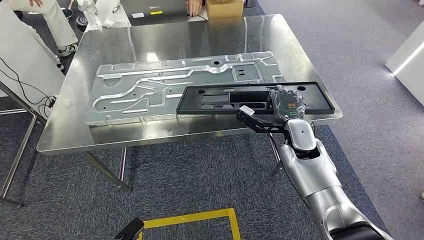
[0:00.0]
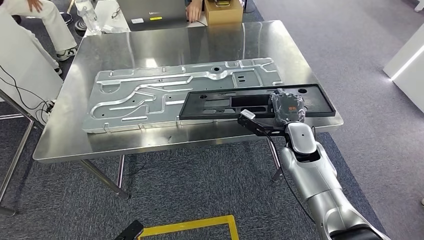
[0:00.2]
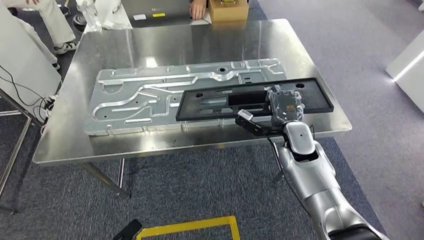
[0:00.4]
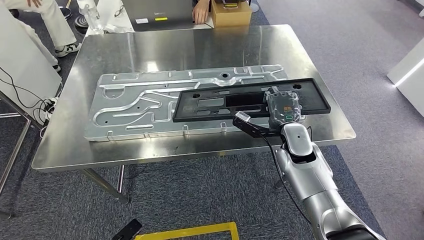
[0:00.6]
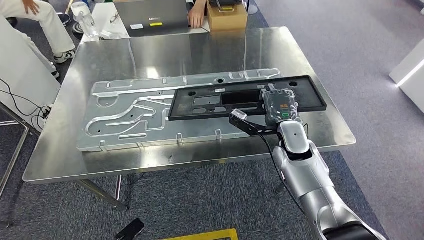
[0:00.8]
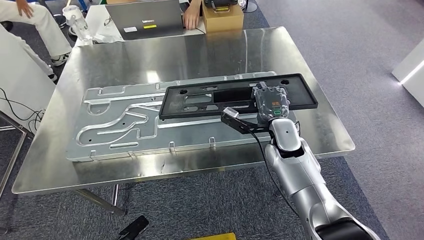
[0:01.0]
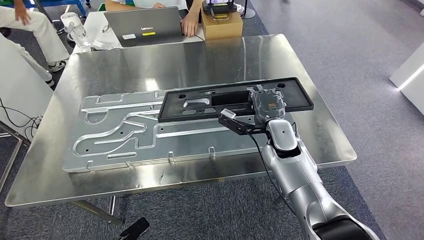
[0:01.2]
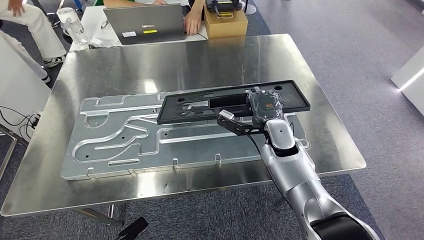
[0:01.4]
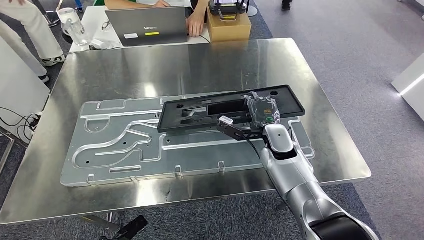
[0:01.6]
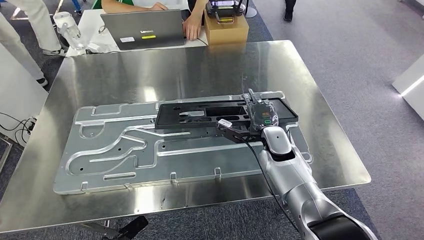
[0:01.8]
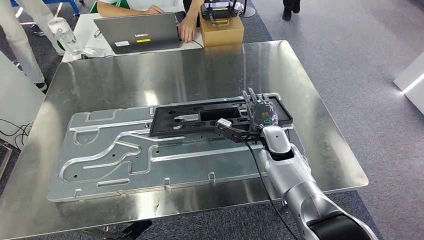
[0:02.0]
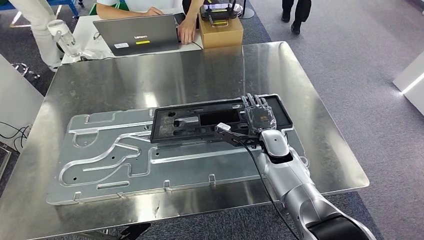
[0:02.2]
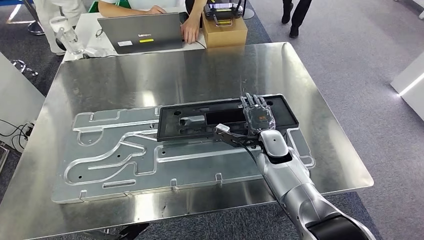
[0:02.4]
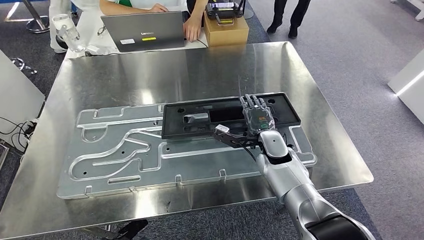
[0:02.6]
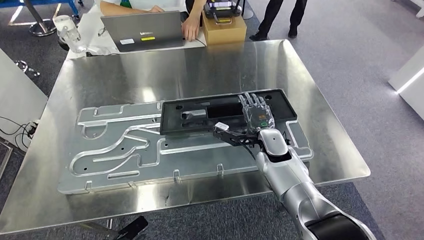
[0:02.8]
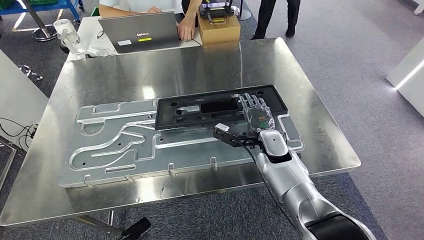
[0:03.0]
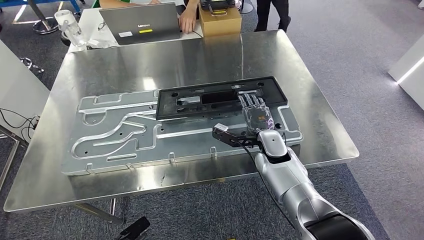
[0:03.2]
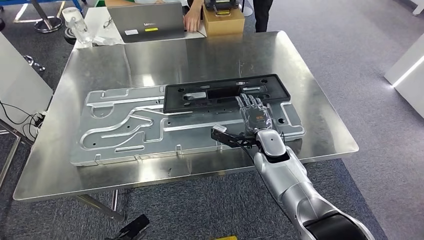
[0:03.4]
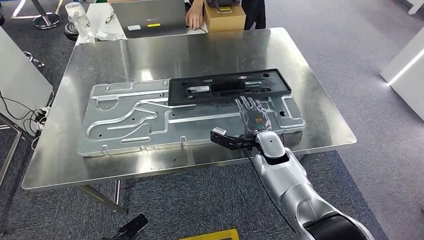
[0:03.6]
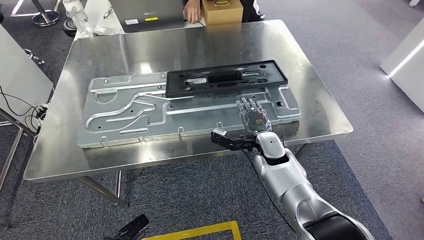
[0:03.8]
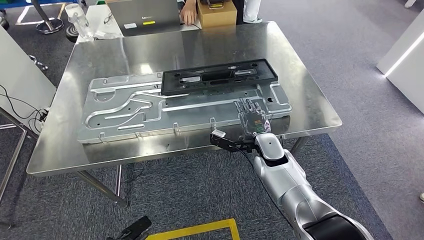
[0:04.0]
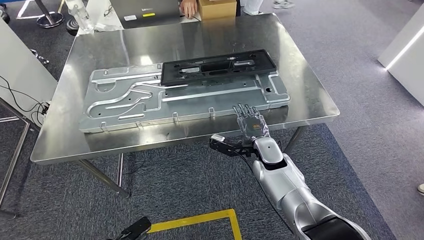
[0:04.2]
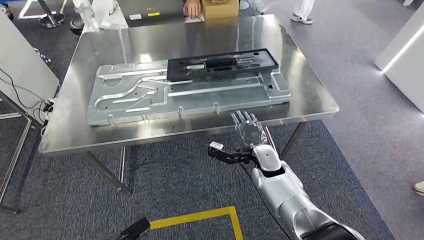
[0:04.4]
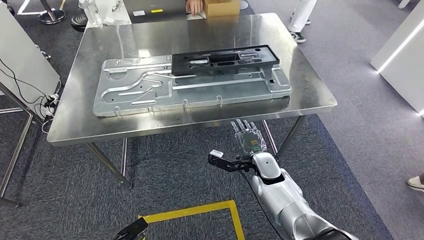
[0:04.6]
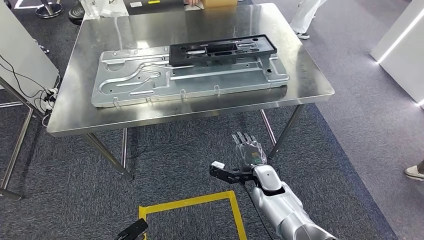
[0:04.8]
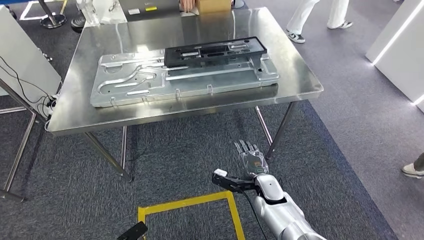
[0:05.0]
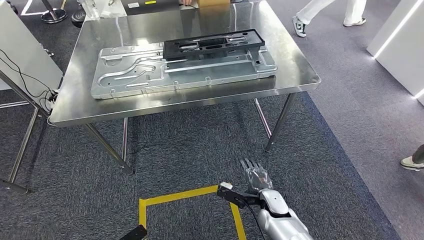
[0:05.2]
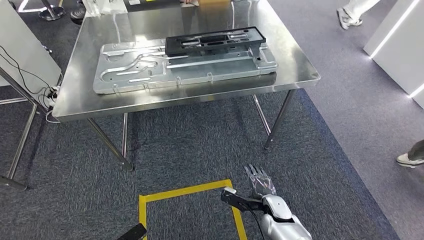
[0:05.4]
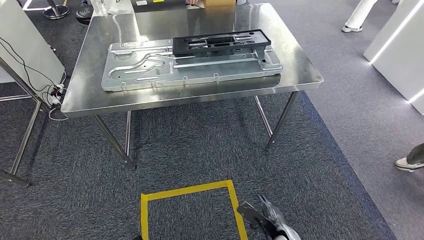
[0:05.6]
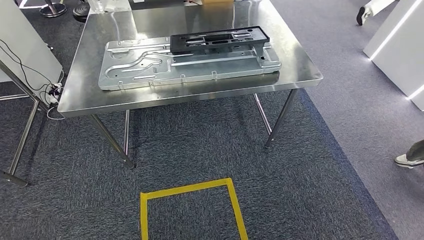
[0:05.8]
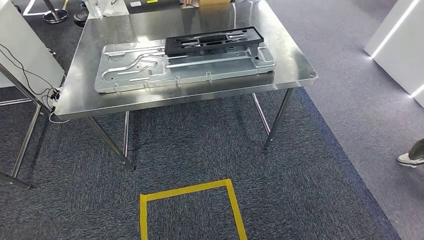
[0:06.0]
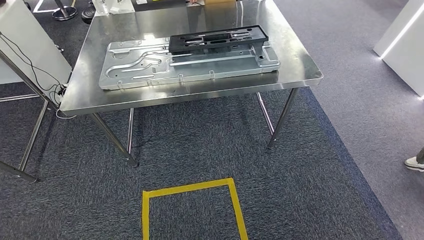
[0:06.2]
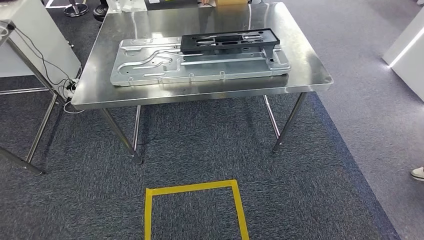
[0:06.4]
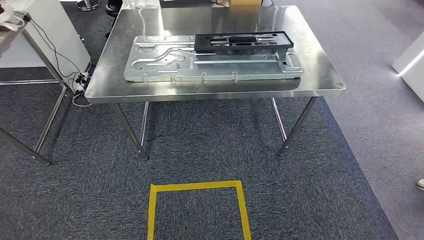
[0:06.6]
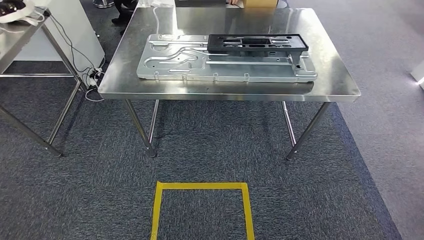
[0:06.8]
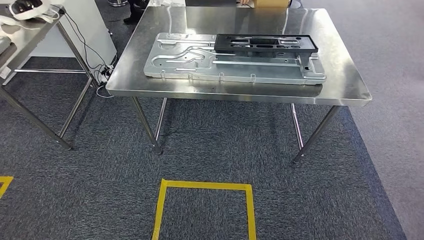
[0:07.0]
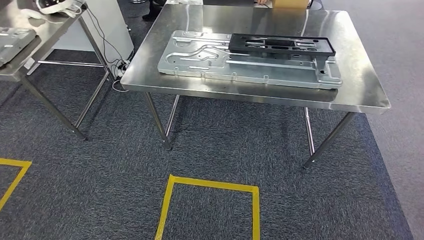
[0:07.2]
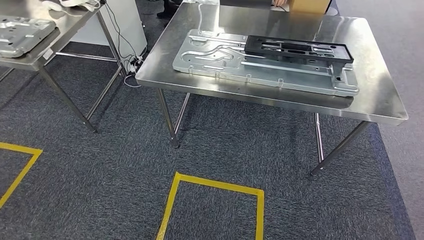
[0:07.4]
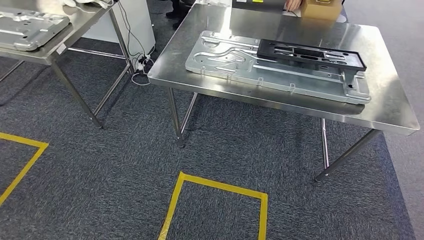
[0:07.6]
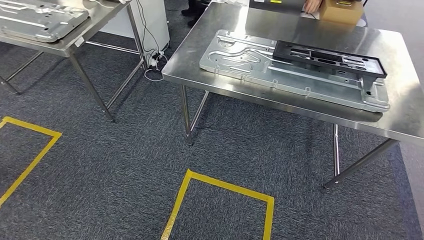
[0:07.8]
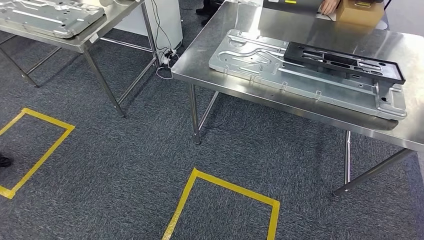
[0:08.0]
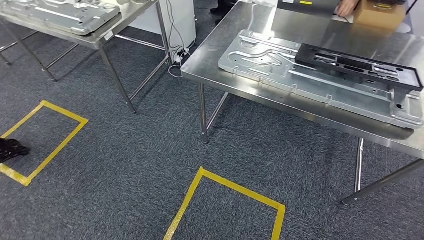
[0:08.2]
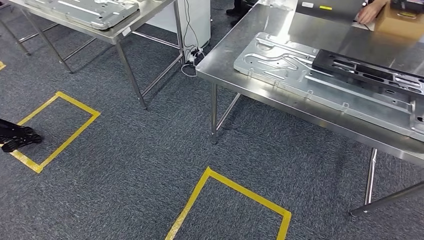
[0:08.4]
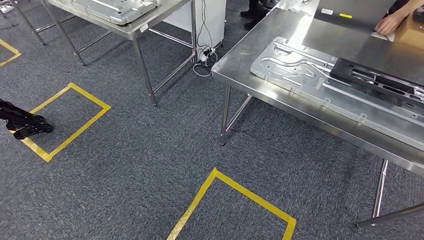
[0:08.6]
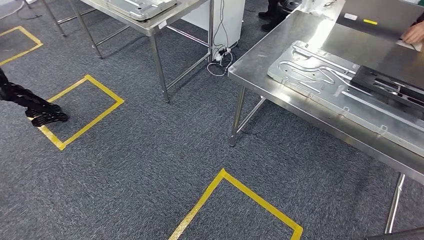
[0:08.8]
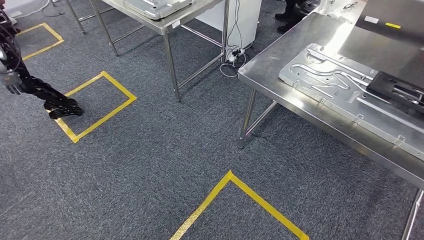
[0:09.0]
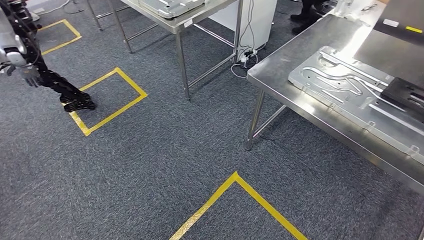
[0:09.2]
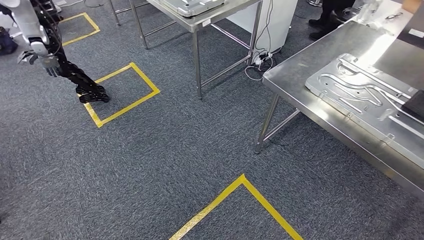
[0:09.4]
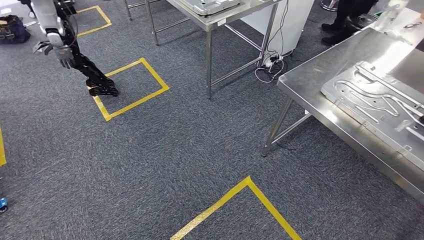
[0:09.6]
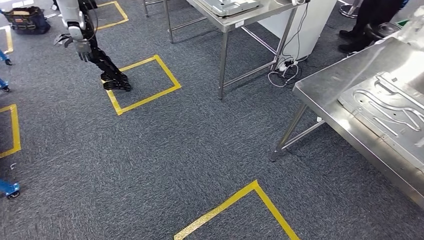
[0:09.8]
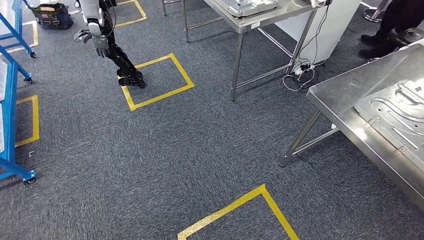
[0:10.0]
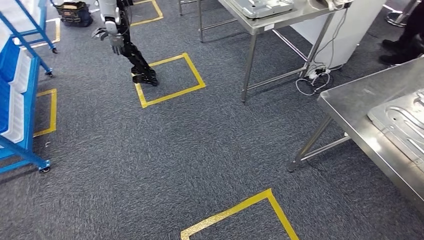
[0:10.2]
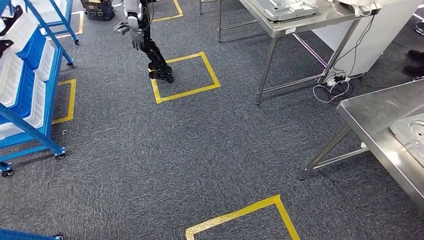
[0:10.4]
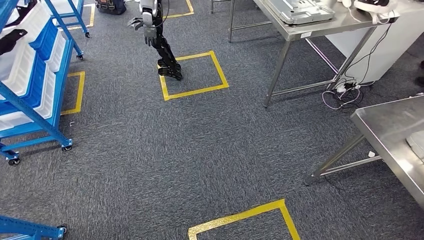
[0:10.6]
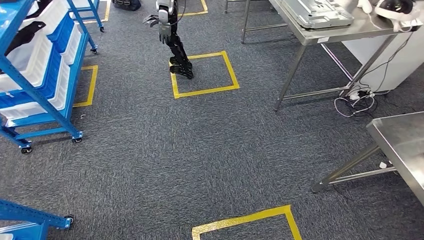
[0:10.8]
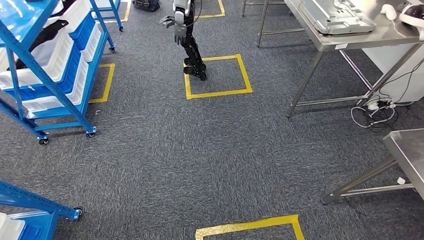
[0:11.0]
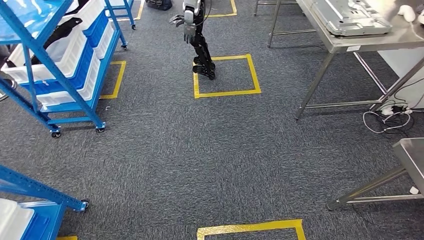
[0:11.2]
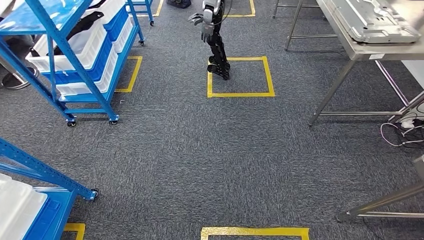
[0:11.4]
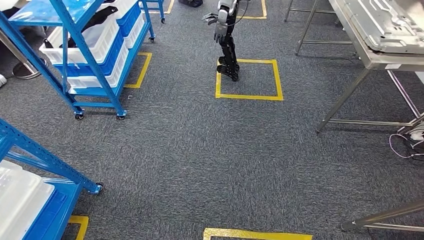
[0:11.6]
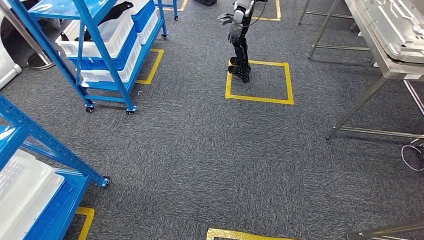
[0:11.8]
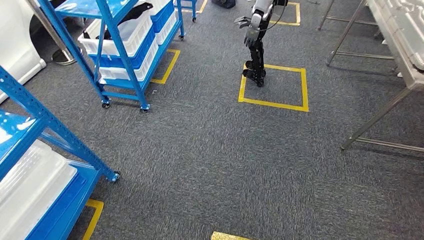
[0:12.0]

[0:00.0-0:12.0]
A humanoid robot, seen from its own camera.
Step, 0:01.4 to 0:05.2: Insert the large parts into the corresponding slots on the workbench.

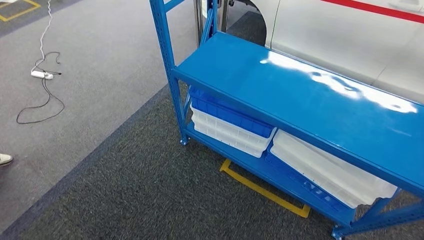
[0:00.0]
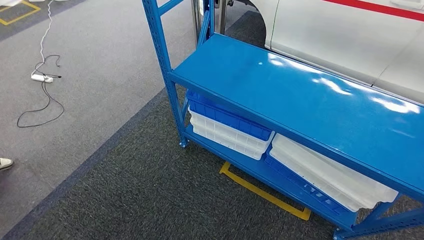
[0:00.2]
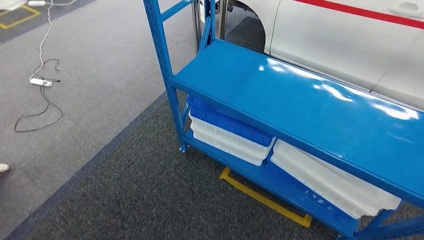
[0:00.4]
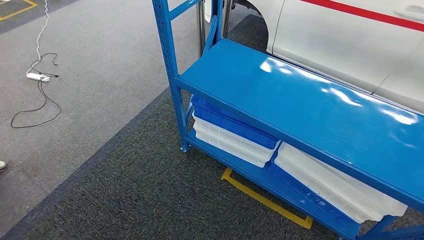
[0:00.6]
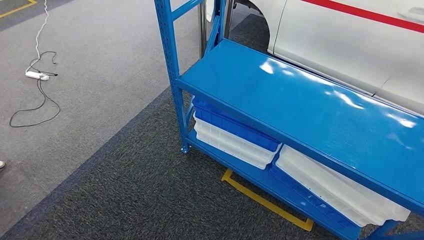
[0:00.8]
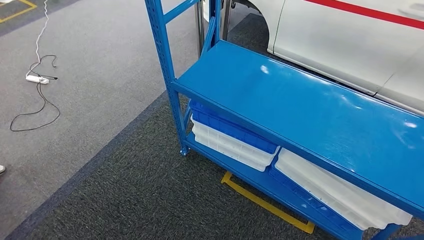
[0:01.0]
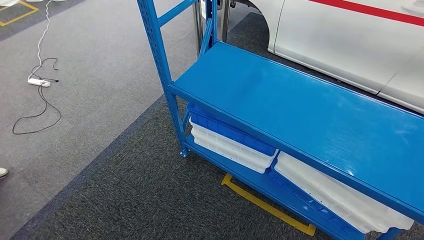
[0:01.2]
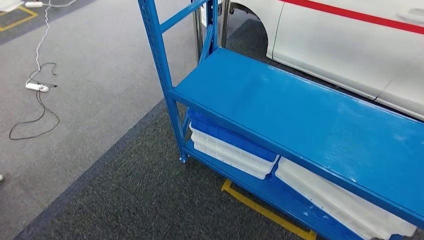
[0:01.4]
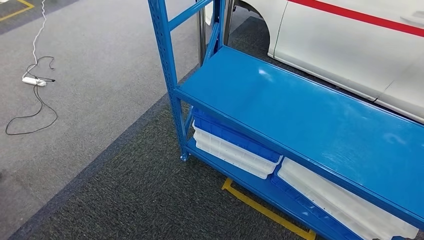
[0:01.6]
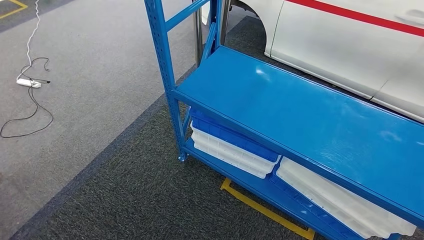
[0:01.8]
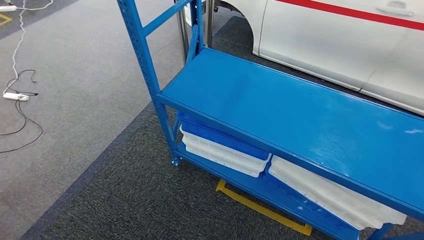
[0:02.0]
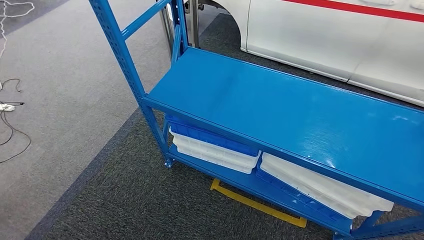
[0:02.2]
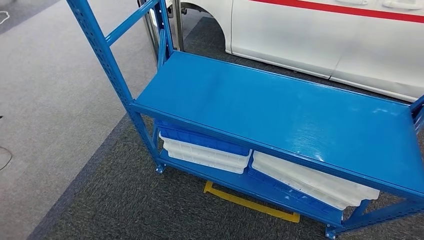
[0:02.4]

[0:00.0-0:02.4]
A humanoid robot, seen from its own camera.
Step, 0:00.0 to 0:02.4: Return to the initial position at the shelf.
